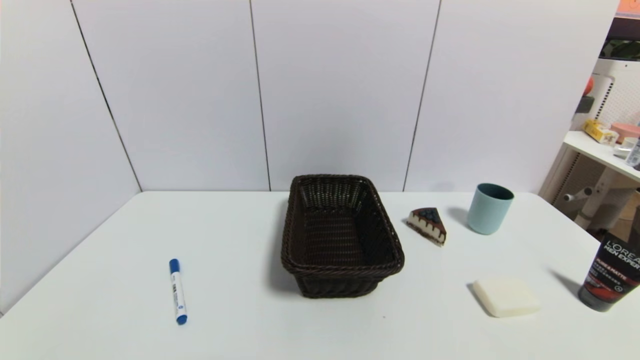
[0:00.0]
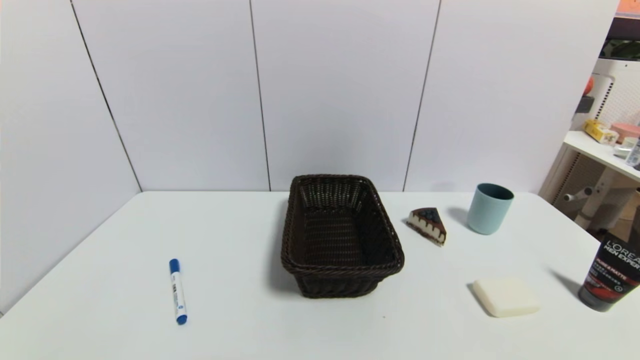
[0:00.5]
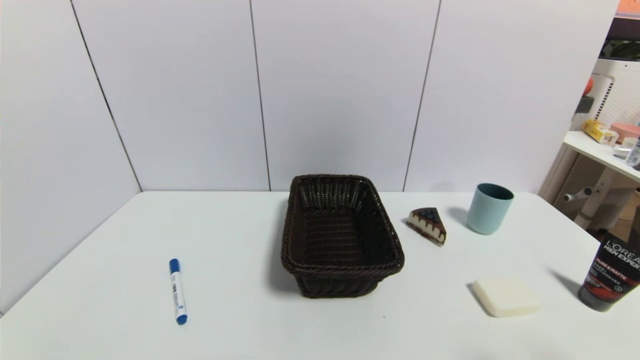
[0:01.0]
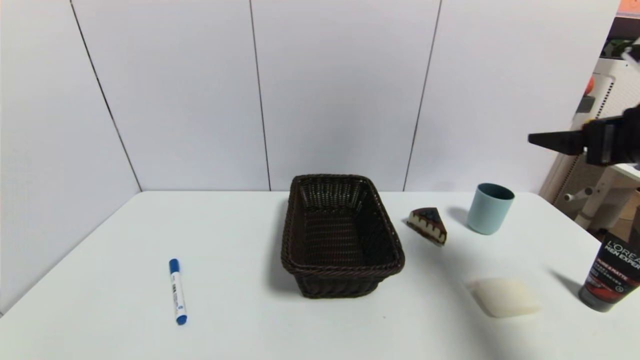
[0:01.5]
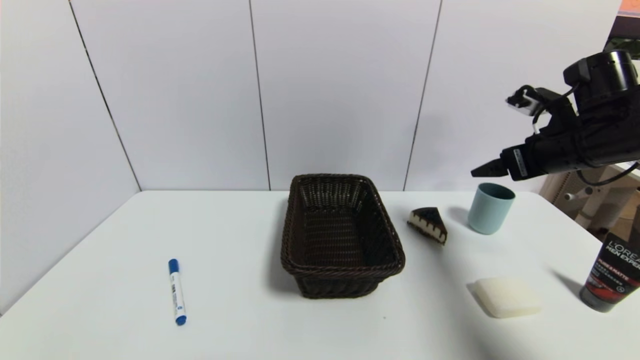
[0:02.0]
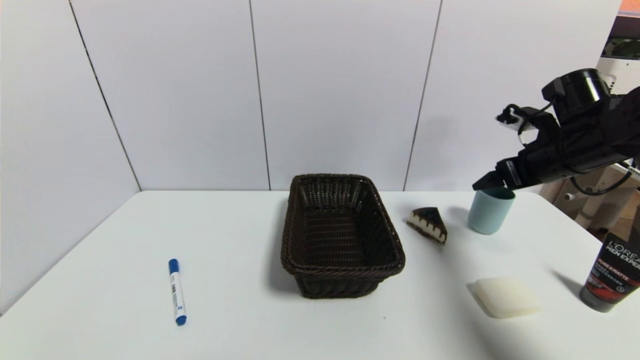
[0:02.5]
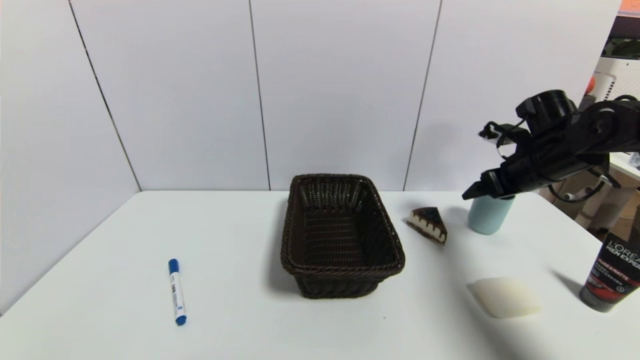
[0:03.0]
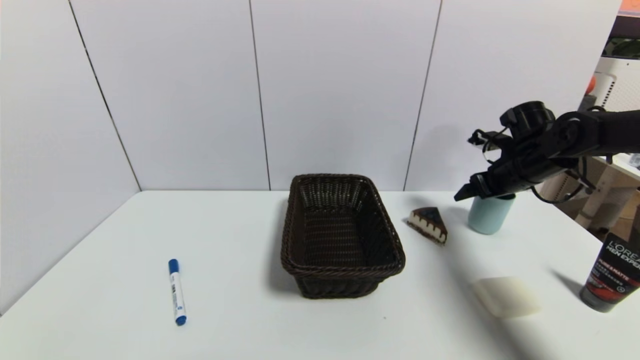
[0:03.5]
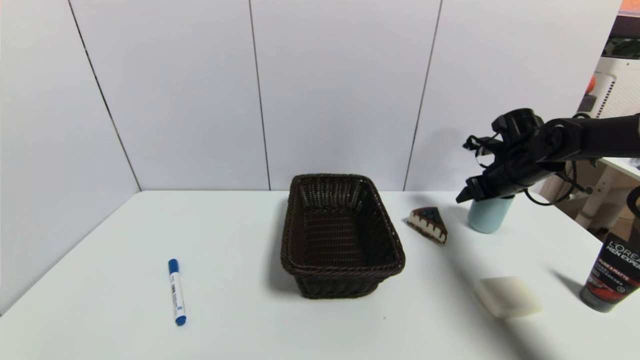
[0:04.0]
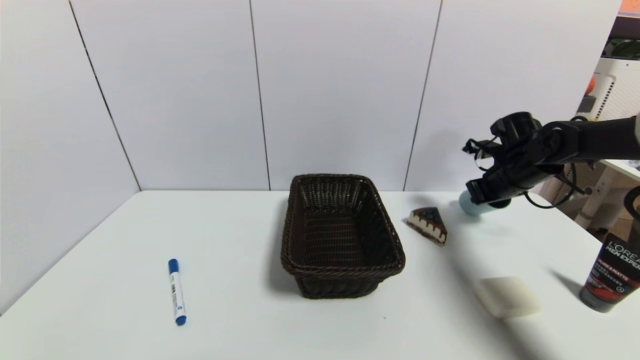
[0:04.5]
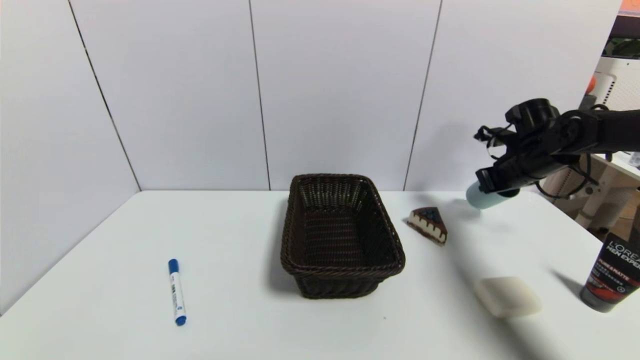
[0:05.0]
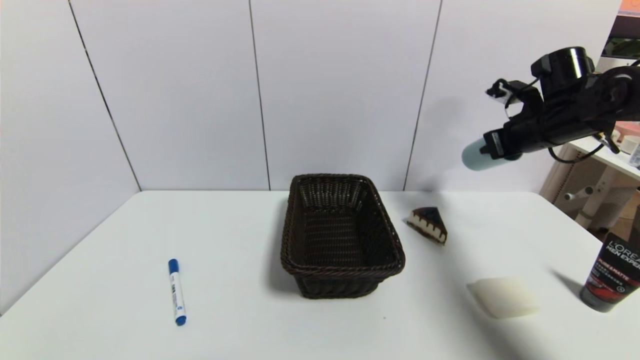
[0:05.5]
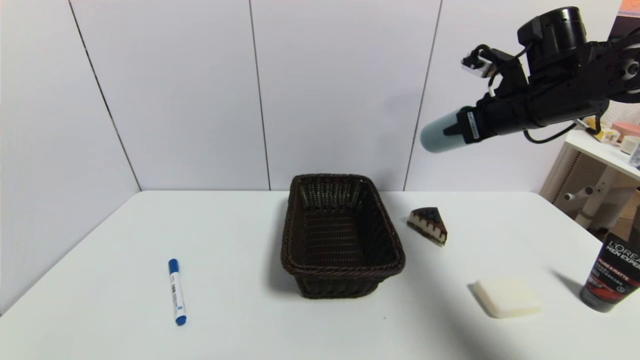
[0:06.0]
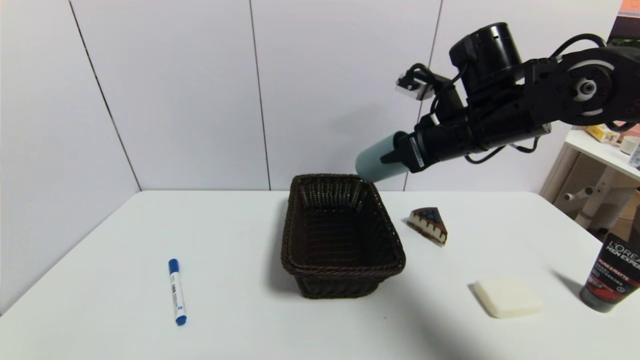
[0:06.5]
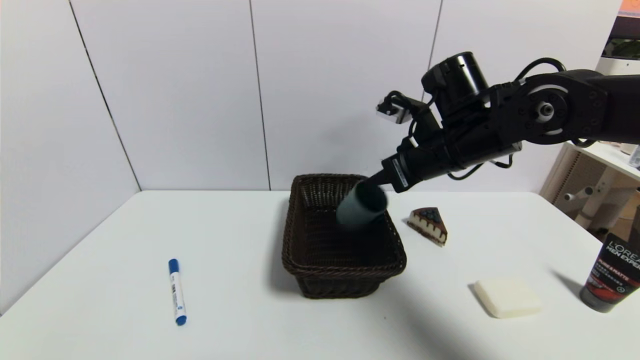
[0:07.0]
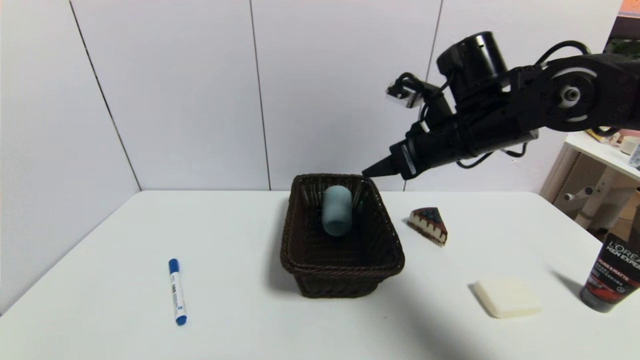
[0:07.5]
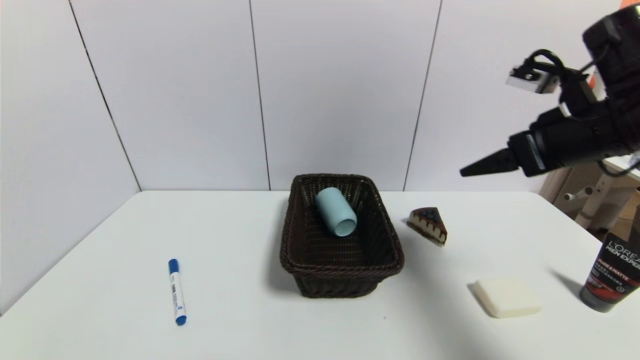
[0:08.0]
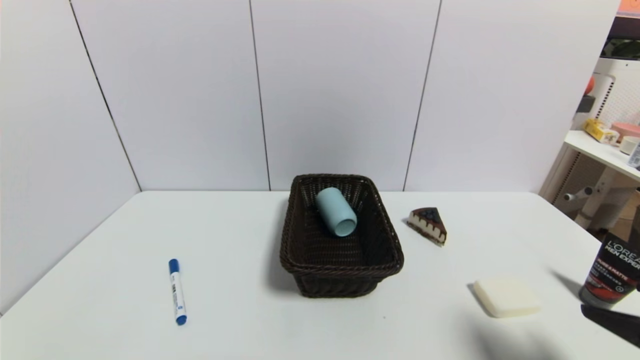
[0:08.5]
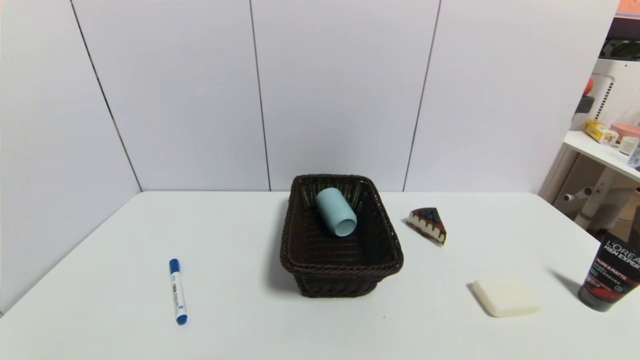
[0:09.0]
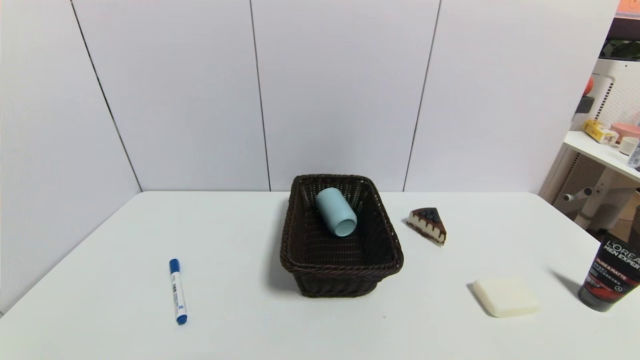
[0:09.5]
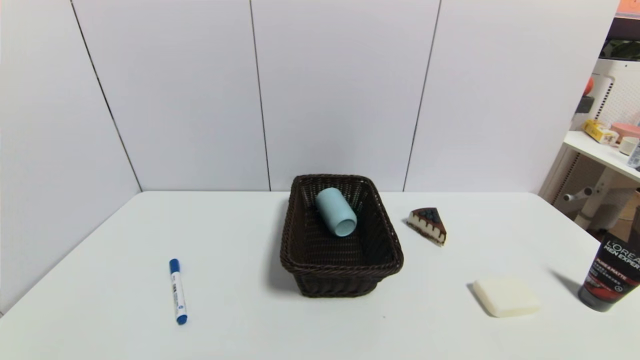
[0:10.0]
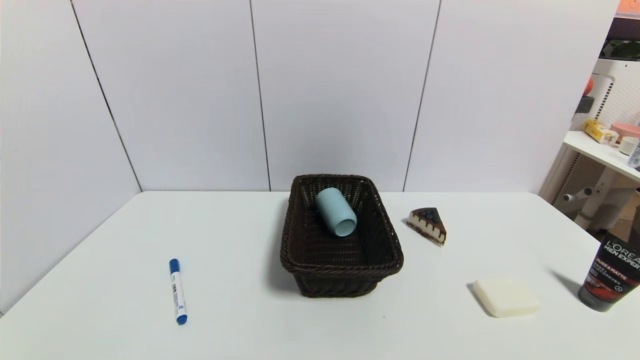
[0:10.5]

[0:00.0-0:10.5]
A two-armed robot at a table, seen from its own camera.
Task of the whole recording: use a gripper to pick the target object and place on the brown basket.
Step, 0:00.0 to 0:04.5: Grasp the blue cup with the right gripper.
Step, 0:05.0 to 0:07.5: Place the blue cup into the basket with the right gripper.
0:00.0 to 0:02.0: The right gripper is displaced forward and upward by roughly 40 cm.
0:02.0 to 0:04.0: The right gripper travels forward and downward by approximately 15 cm.
0:04.0 to 0:06.5: The right gripper goes approximately 25 cm to the left, upward and backward, and closes up.
0:06.5 to 0:08.5: The right gripper goes roughly 30 cm backward and to the right, and opens its fingers.
0:08.5 to 0:10.5: The right gripper heads downward and backward, covering some 15 cm.

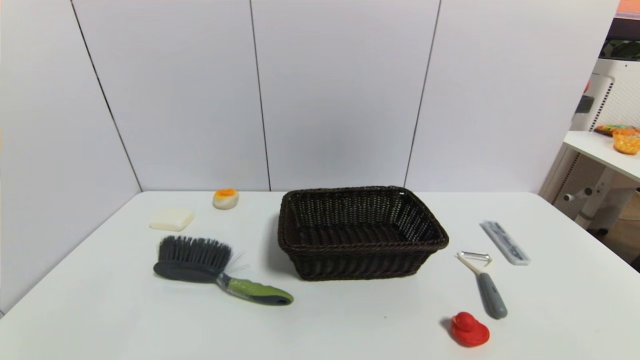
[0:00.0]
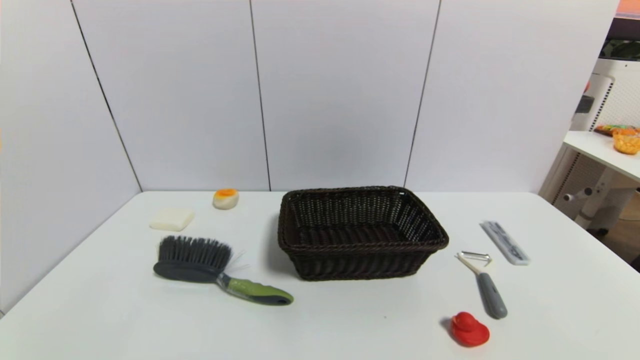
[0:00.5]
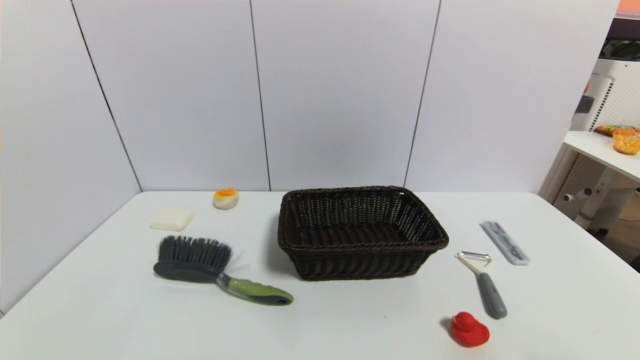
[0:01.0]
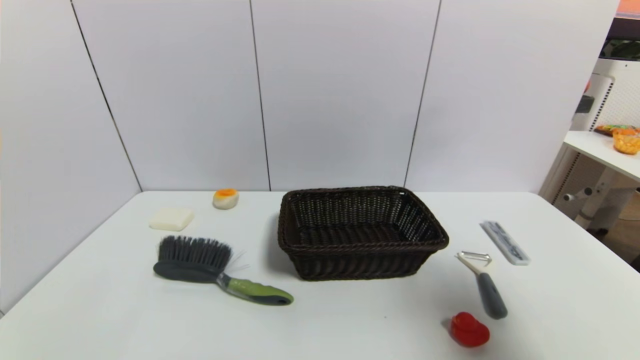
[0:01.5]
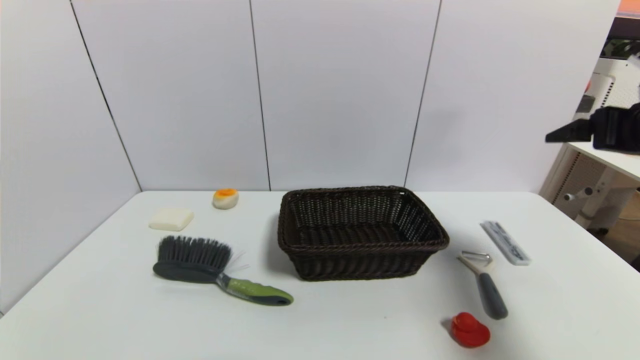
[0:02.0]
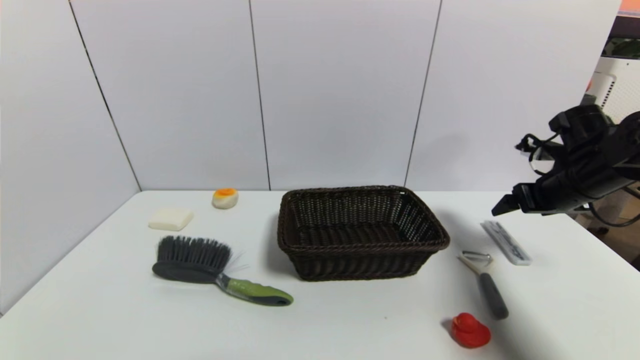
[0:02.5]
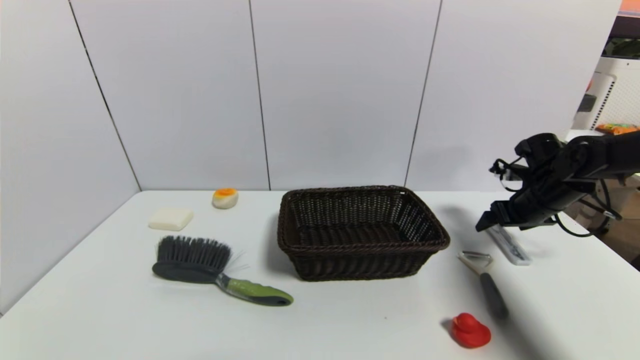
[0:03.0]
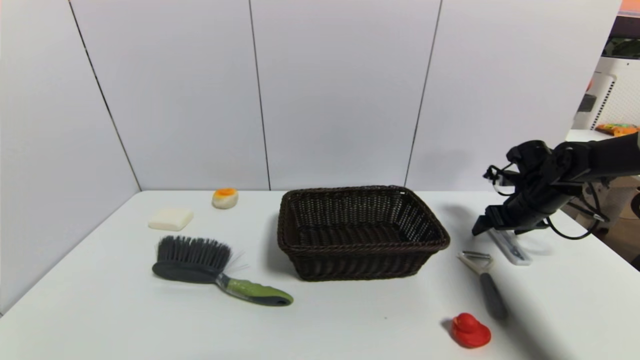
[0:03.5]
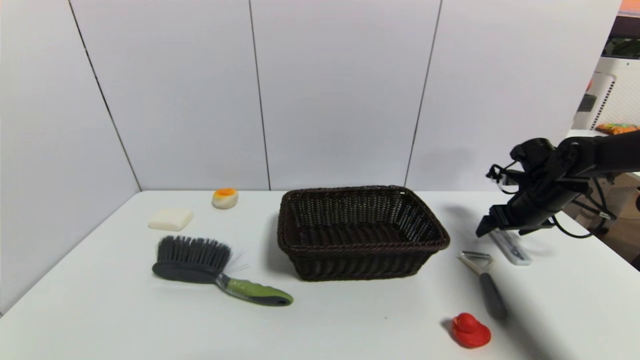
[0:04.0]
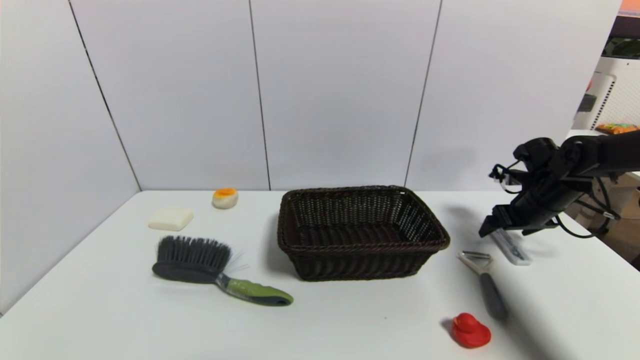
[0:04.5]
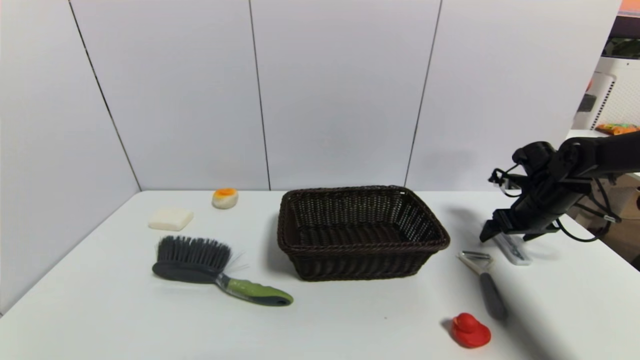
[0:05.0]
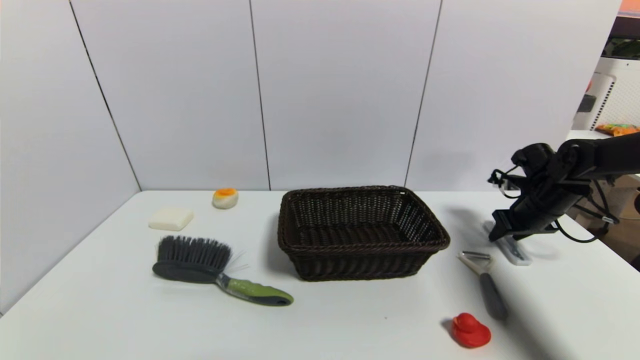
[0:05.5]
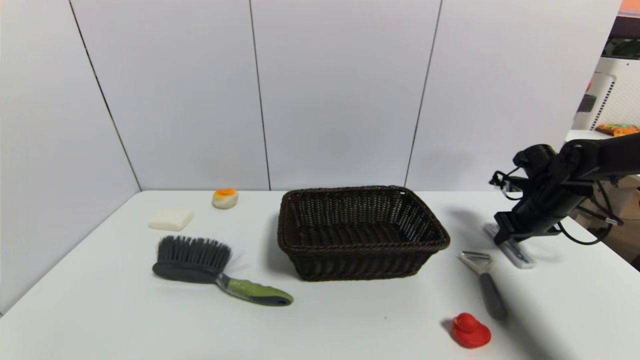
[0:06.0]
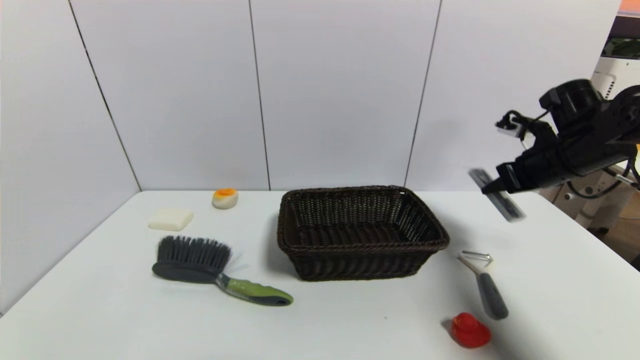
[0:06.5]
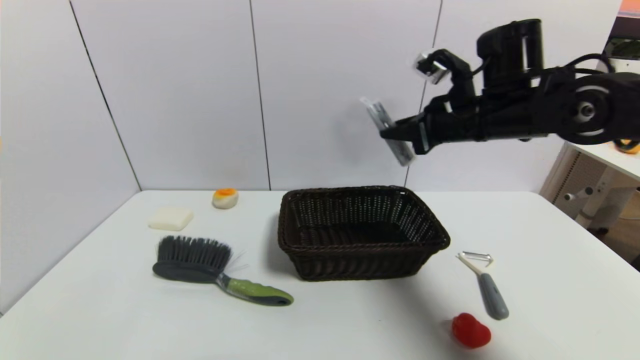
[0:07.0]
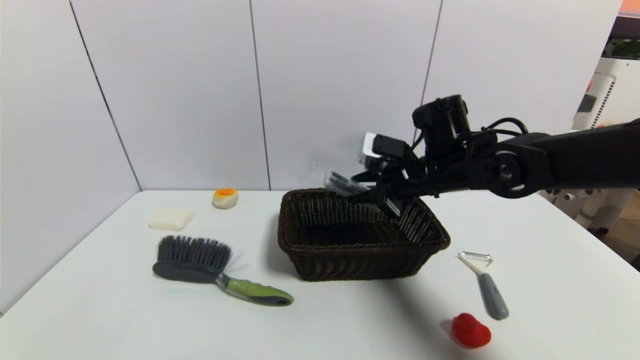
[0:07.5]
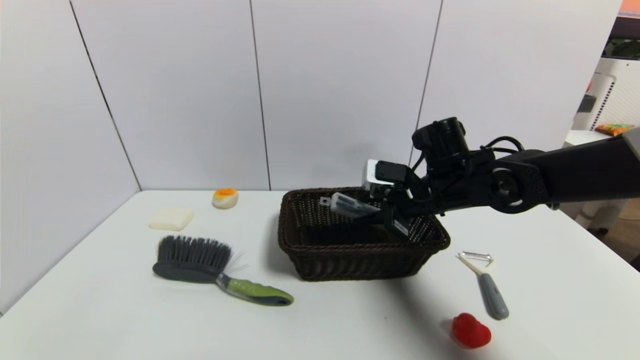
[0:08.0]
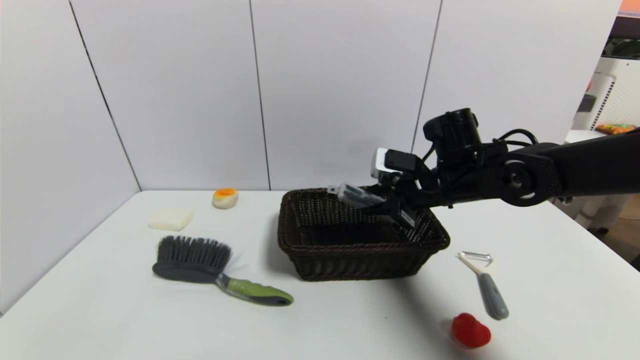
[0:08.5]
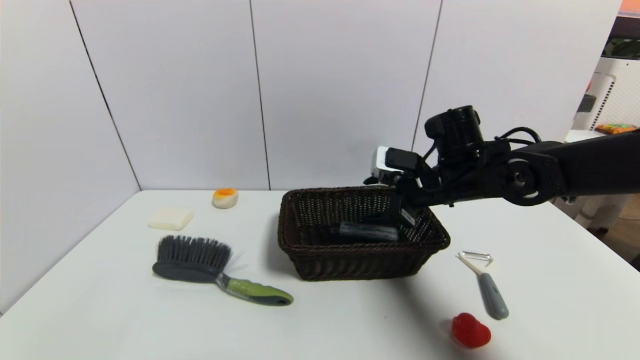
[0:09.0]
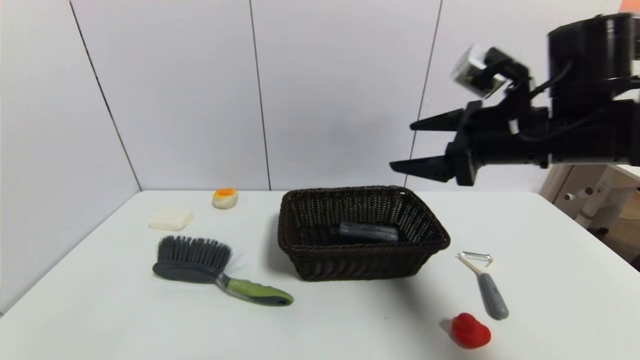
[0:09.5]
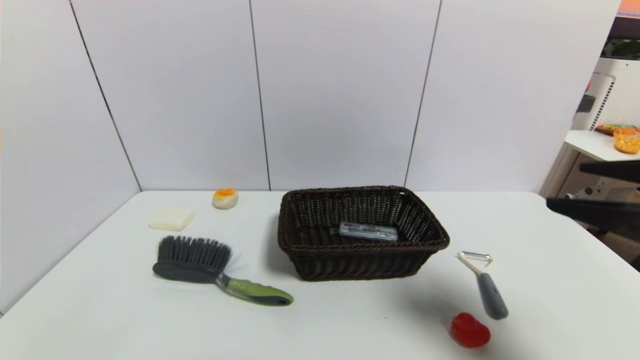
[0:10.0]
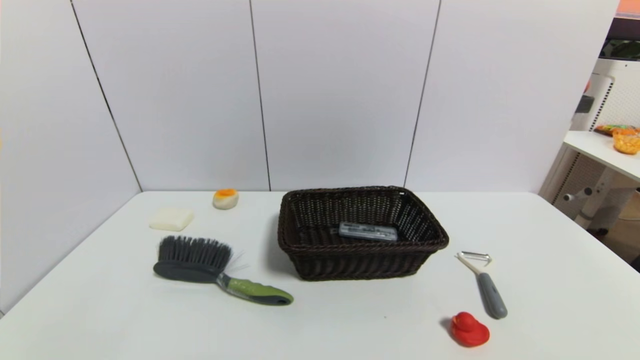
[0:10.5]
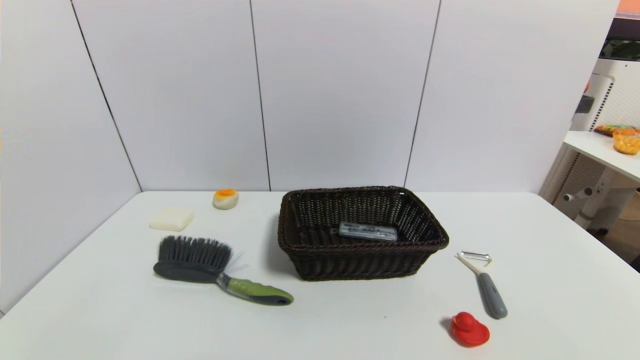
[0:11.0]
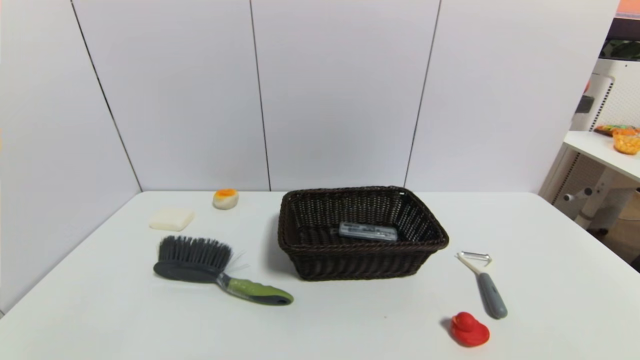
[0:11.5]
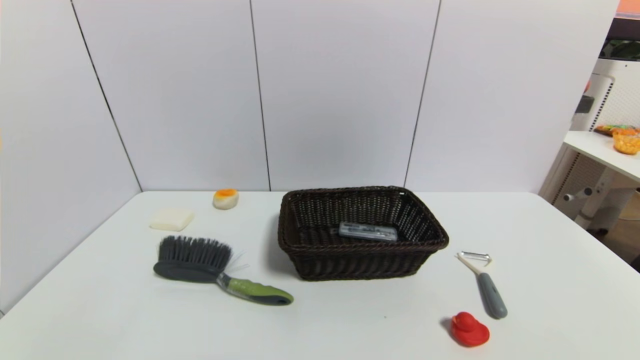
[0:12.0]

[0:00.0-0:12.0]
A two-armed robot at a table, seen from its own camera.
Task of the whole recording: use a gripper to pick the target object and place on the brown basket.
Step, 0:00.0 to 0:05.5: Grasp the compasses with the right gripper.
Step, 0:06.0 to 0:08.5: Place the compasses into the basket with the right gripper.
0:00.0 to 0:02.0: The right gripper travels forward and upward by about 35 cm.
0:02.0 to 0:04.0: The right gripper is displaced downward and forward by some 25 cm.
0:04.0 to 0:06.0: The right gripper closes its fingers.
0:06.0 to 0:08.0: The right gripper travels to the left by about 20 cm.
0:08.0 to 0:10.0: The right gripper shifts some 30 cm backward, to the right and upward, and opens.
0:10.0 to 0:12.0: The right gripper moves downward and backward, some 25 cm.
